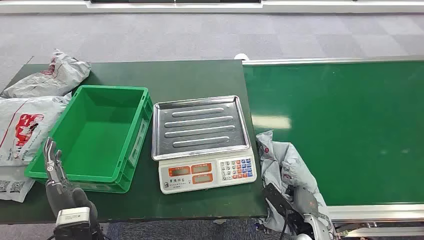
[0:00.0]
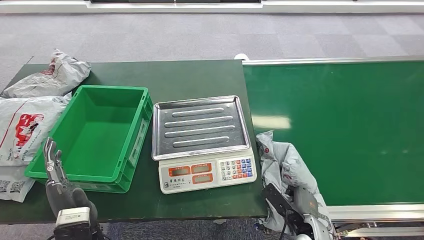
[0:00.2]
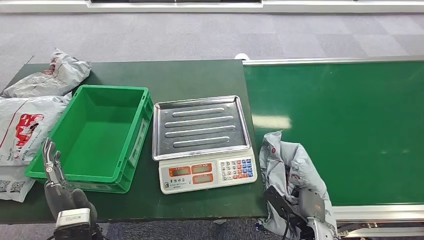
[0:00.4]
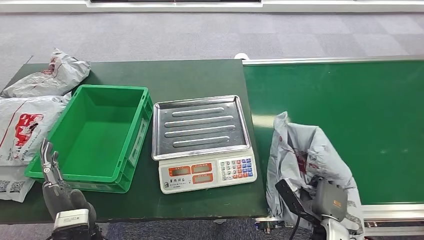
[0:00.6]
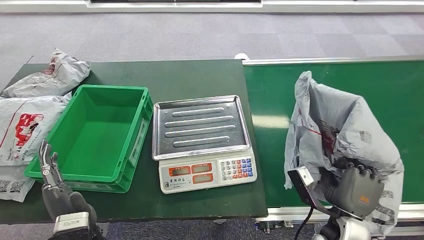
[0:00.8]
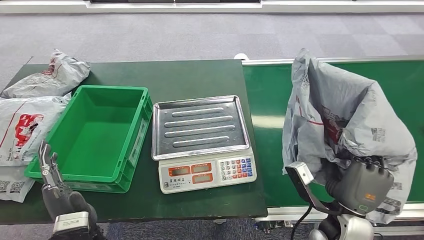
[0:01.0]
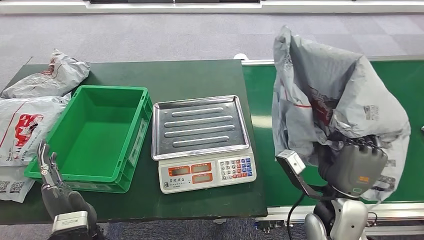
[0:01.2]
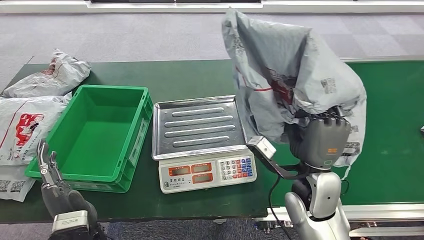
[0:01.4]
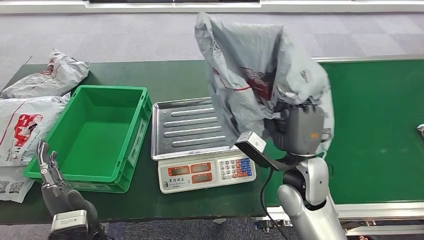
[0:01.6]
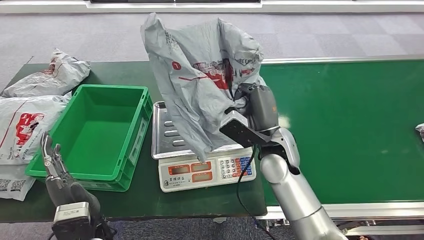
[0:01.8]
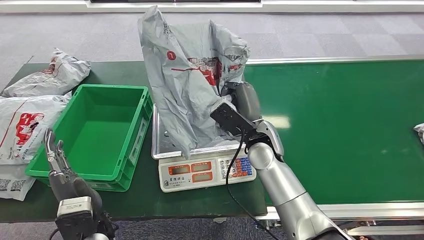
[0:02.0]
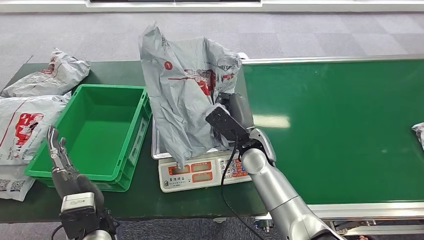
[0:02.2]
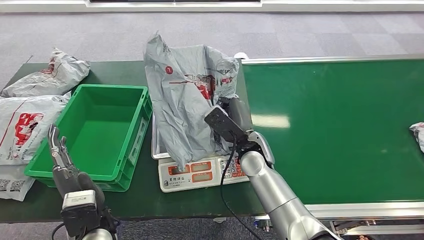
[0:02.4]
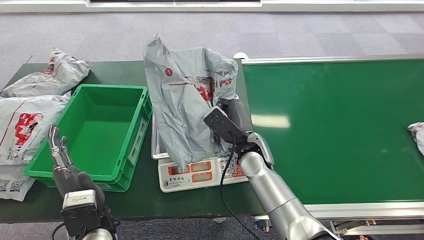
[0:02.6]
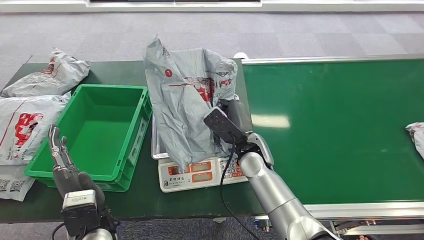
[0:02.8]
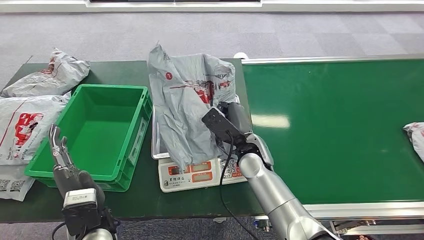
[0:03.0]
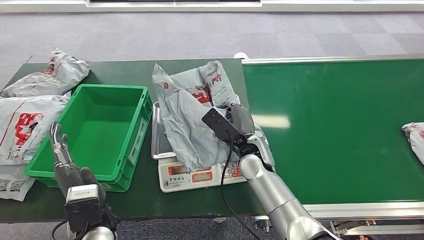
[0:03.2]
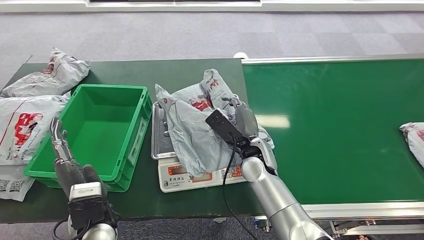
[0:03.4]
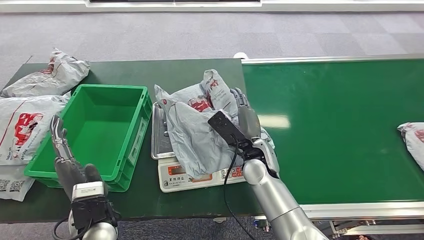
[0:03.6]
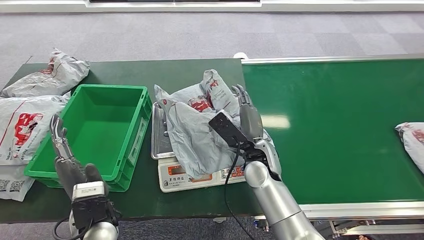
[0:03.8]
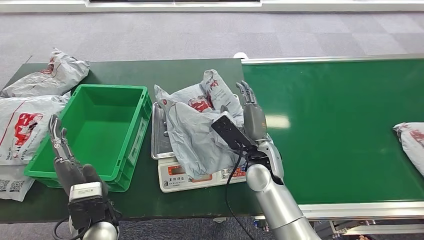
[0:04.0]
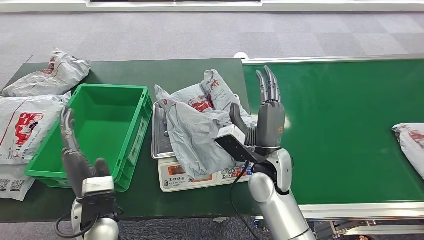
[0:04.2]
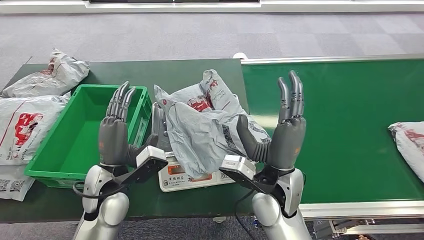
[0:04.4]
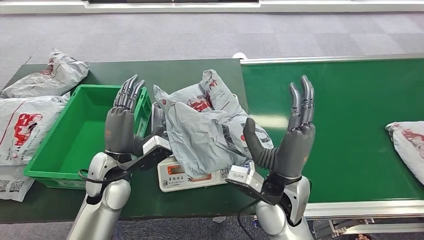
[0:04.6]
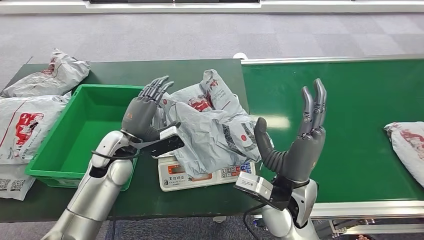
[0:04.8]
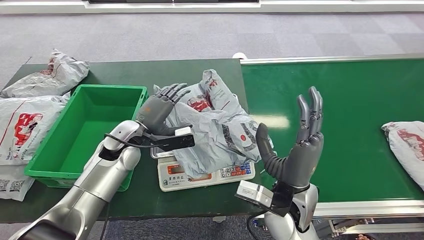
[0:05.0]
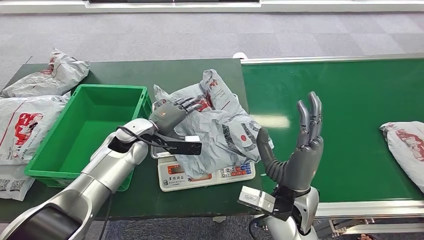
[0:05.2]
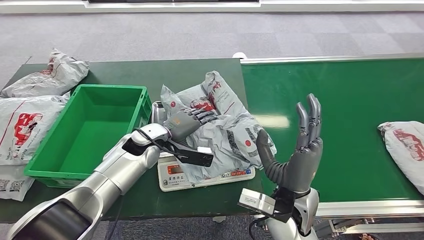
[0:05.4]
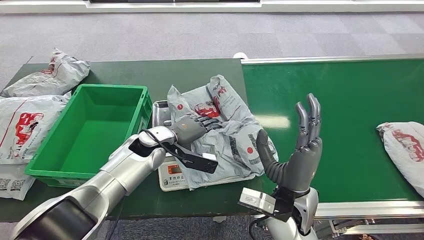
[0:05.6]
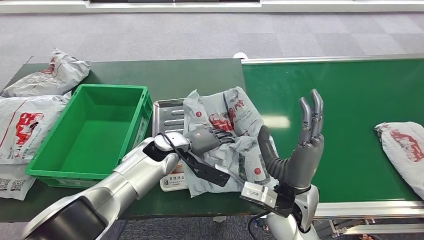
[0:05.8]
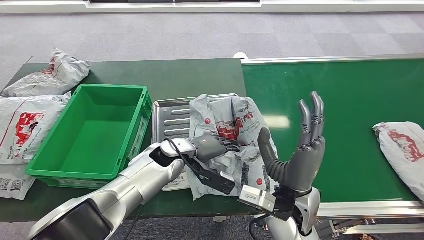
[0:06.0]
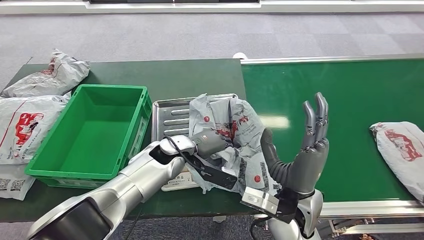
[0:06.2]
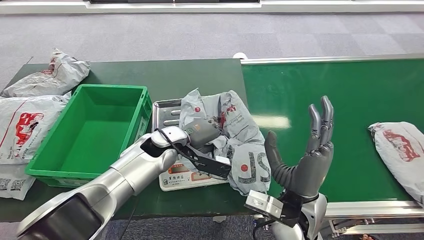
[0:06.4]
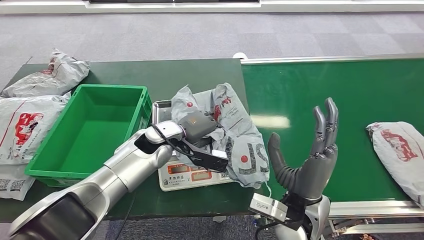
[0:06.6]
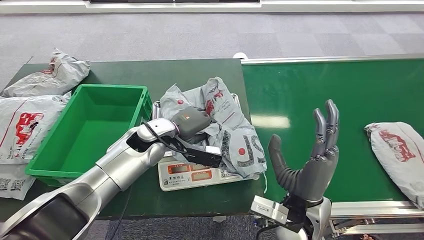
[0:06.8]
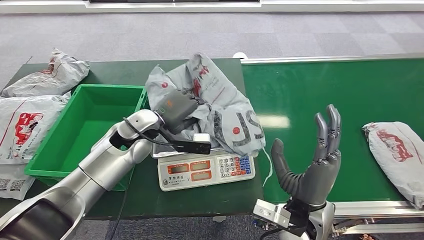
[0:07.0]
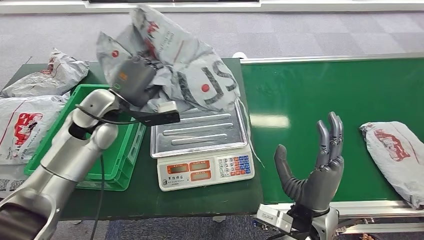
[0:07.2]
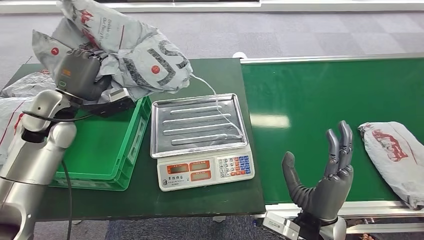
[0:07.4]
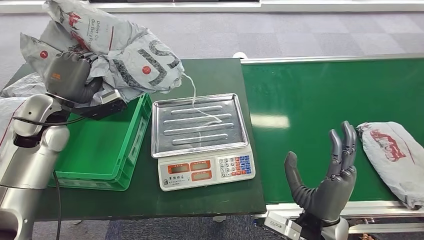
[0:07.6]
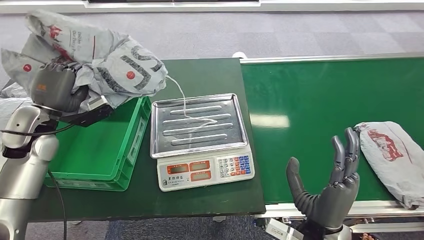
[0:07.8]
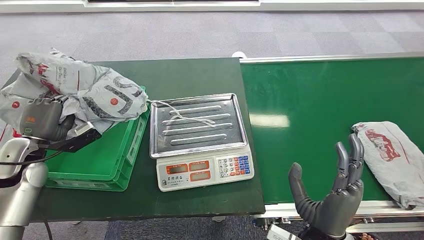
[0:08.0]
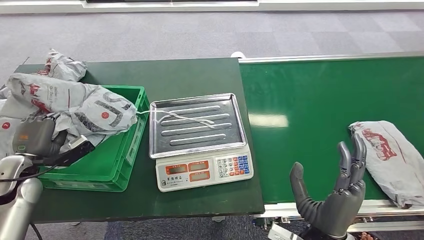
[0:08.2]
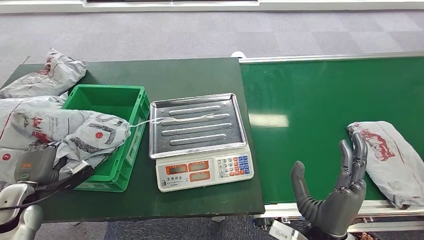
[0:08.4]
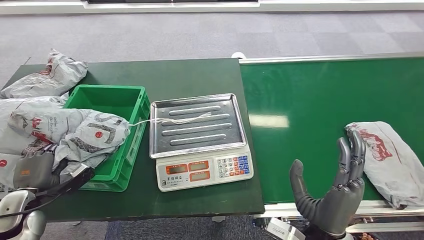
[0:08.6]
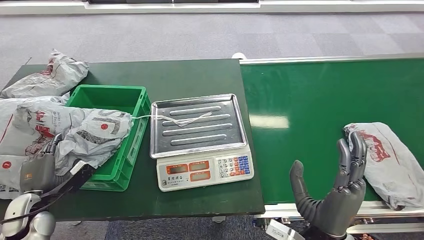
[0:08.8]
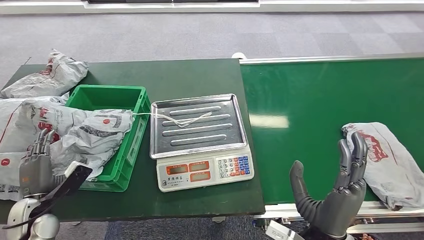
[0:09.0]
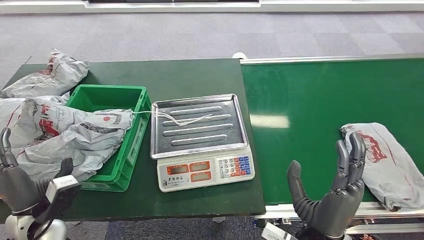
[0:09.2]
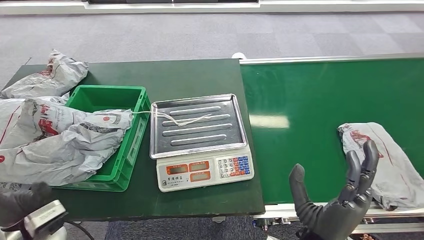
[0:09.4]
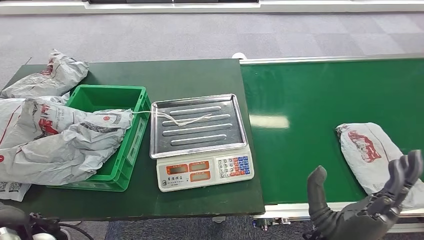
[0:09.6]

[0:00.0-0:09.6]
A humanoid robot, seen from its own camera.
Step, 0:00.0 to 0:01.2: Pick up the package from the conveyor belt.
Step, 0:01.4 to 0:05.0: Place the package onto the inbound machine.
Step, 0:05.2 to 0:07.6: Pick up the package from the inbound machine.
Step, 0:07.8 to 0:09.6: Place the package into the parcel locker.

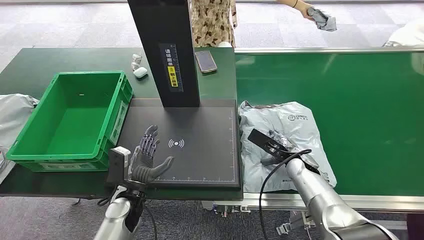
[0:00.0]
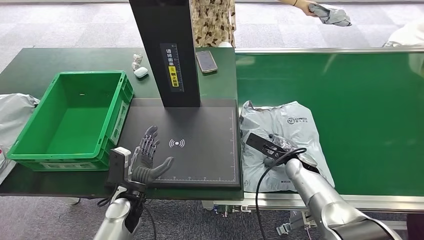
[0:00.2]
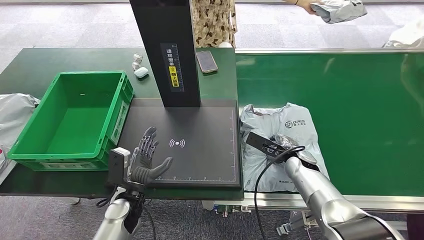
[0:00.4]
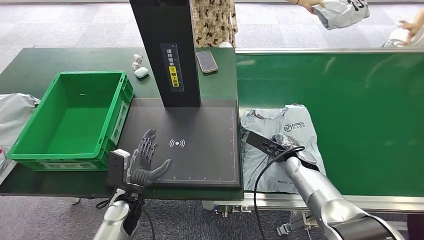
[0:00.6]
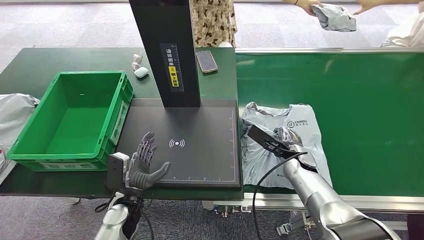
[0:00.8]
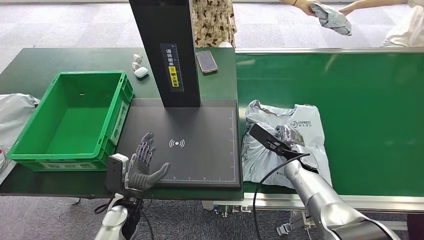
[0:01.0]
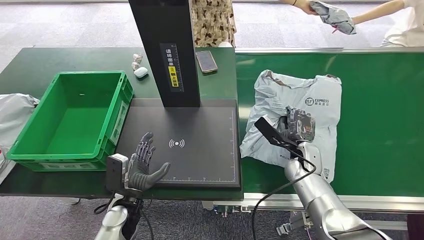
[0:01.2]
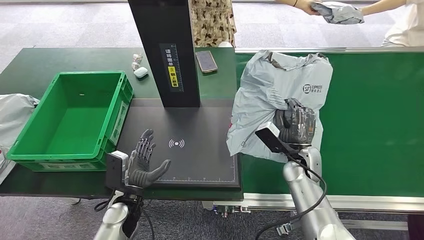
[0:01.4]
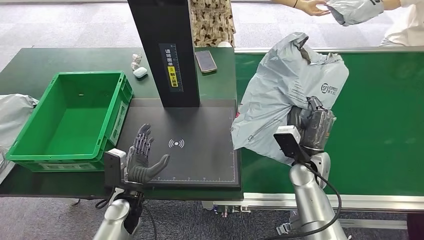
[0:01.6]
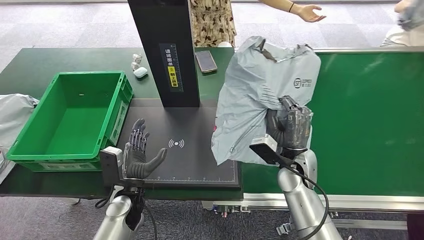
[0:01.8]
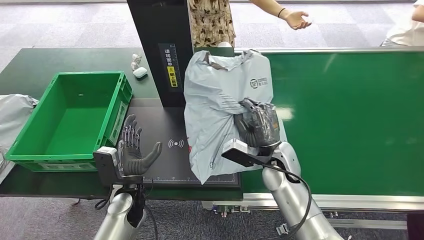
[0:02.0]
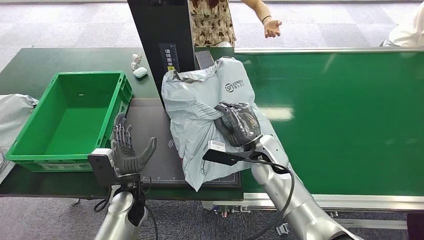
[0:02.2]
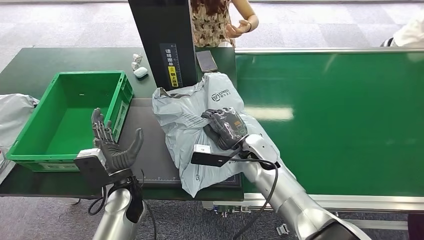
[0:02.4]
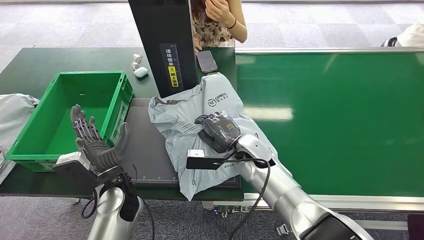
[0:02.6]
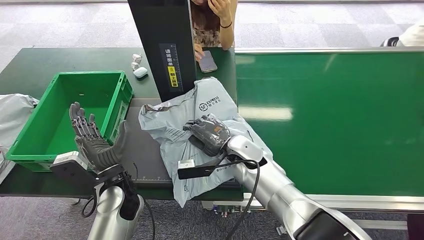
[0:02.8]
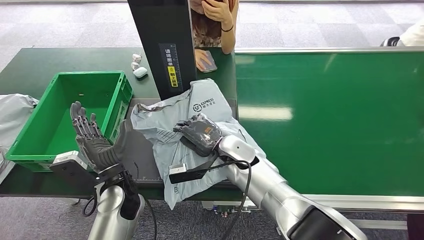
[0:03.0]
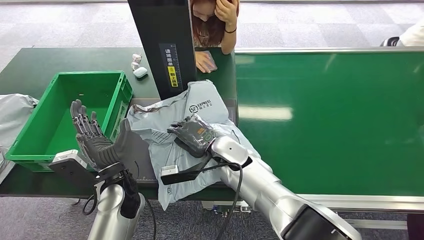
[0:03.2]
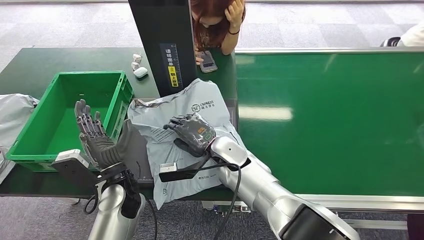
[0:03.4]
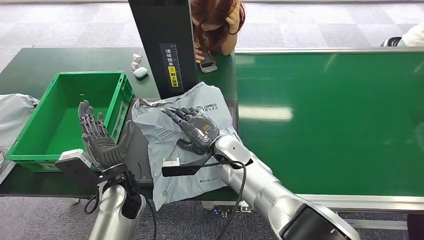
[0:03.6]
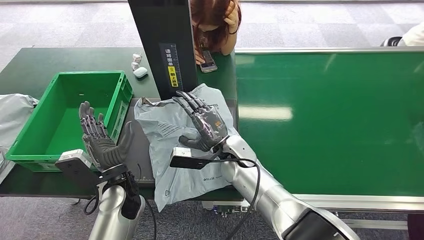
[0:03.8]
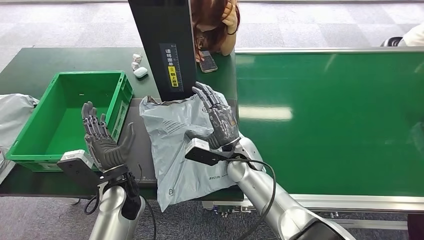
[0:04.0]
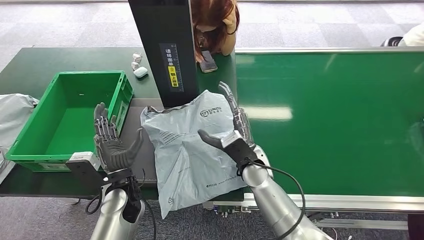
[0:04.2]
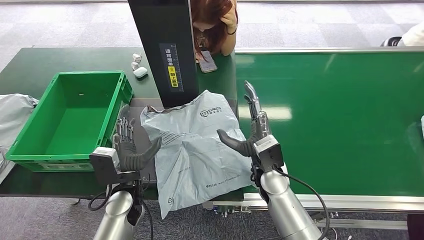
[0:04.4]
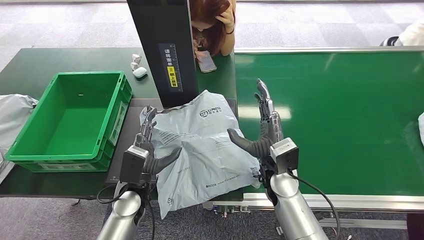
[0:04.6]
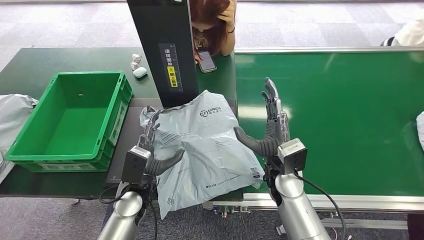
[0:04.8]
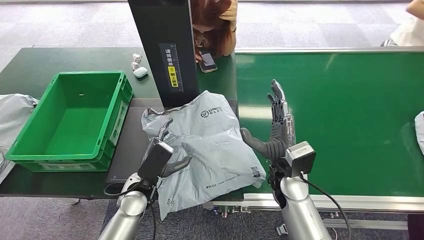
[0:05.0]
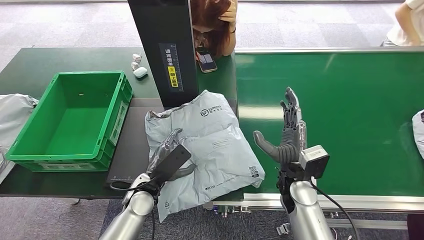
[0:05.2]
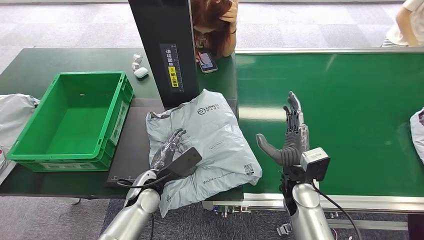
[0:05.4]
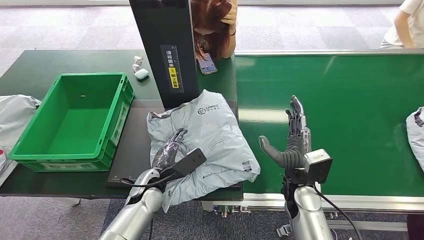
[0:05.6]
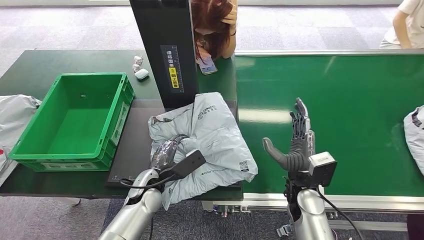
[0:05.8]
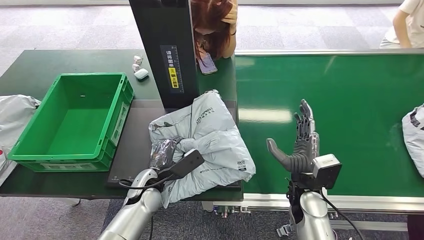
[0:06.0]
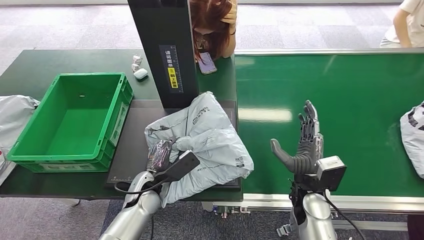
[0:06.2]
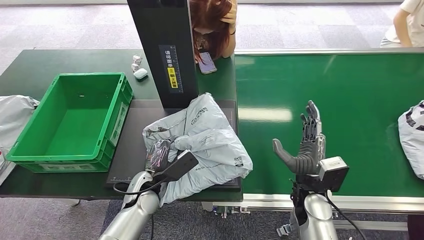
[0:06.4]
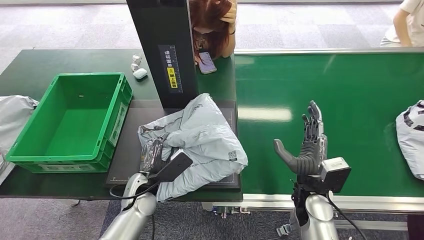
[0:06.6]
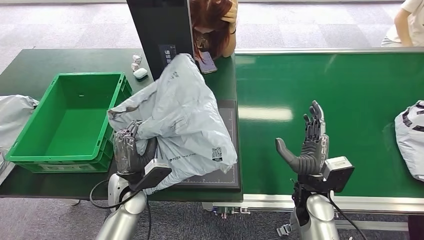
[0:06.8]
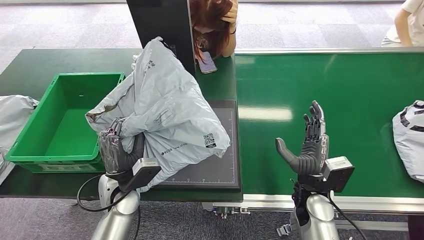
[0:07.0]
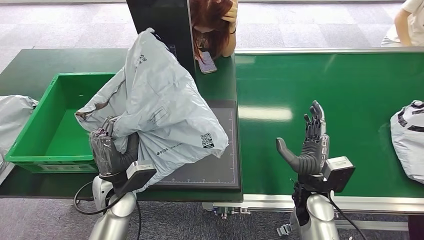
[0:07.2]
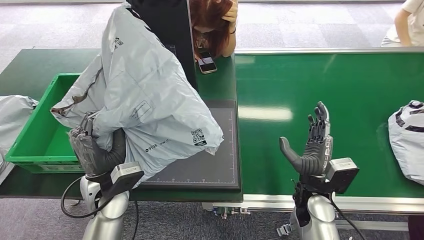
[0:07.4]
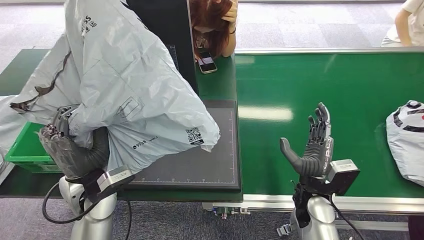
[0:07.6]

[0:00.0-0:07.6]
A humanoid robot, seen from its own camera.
Step, 0:00.0 to 0:01.8: Pick up the package from the conveyor belt.
Step, 0:02.0 to 0:05.4: Place the package onto the inbound machine.
